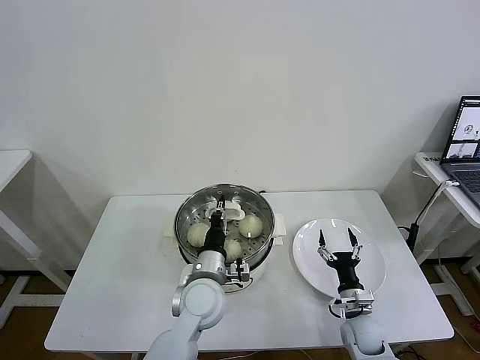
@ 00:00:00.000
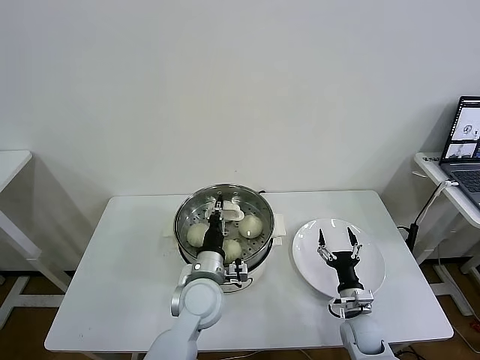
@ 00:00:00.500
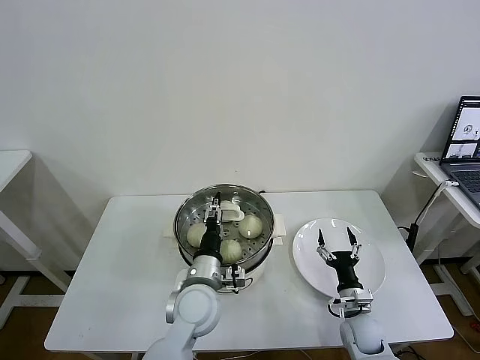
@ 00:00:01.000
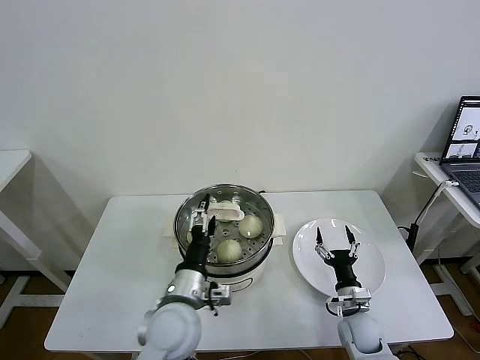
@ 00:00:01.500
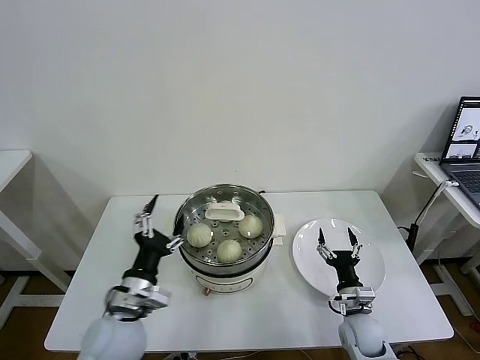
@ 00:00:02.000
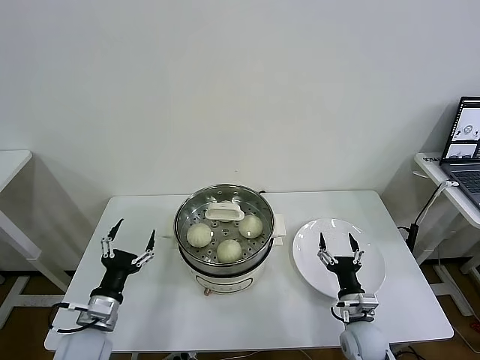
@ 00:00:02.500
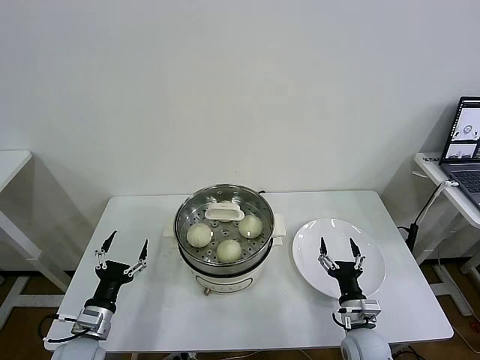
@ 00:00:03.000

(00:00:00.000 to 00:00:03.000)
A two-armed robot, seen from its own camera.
Task of the whole recording: take steamed baozi put them in steamer then cover it.
00:00:00.000 - 00:00:01.500: The left gripper heads backward, covering roughly 5 cm, and opens.
00:00:01.500 - 00:00:03.000: The right gripper moves some 5 cm; the left gripper moves to the left and downward, roughly 25 cm.
